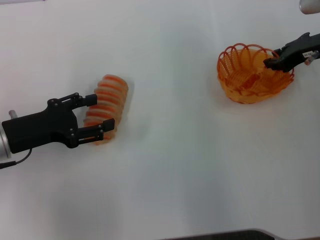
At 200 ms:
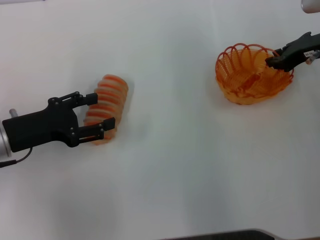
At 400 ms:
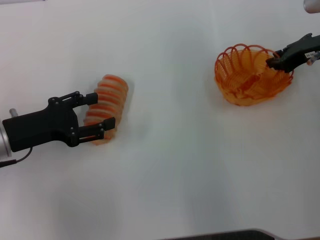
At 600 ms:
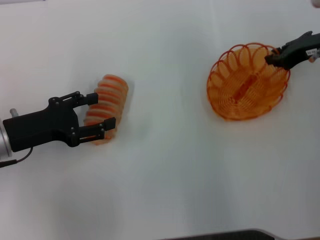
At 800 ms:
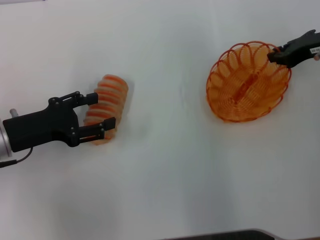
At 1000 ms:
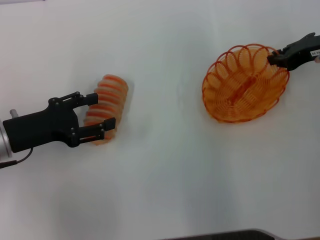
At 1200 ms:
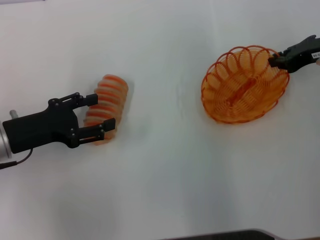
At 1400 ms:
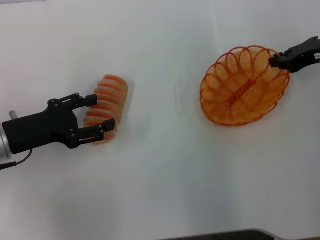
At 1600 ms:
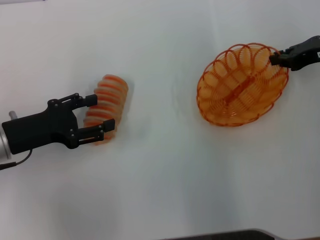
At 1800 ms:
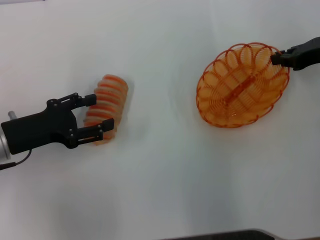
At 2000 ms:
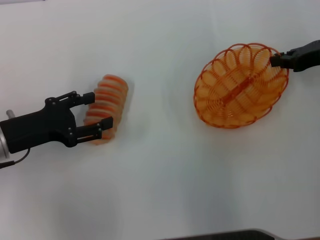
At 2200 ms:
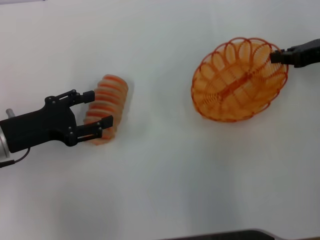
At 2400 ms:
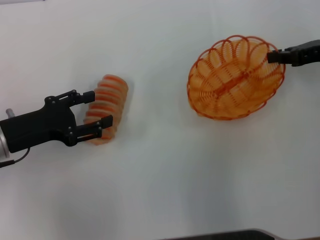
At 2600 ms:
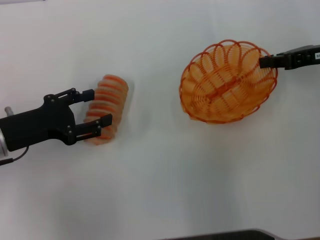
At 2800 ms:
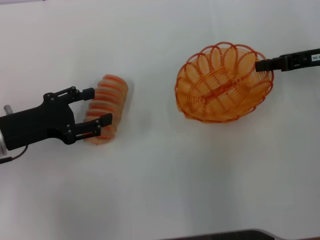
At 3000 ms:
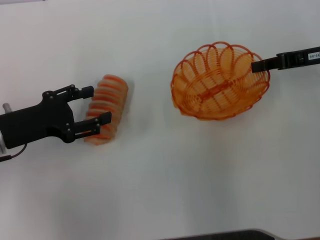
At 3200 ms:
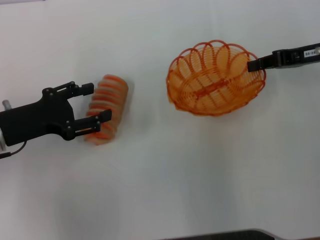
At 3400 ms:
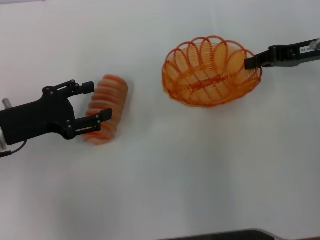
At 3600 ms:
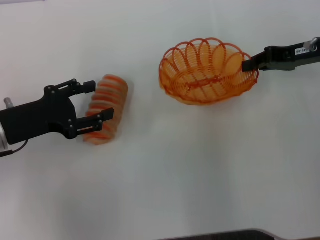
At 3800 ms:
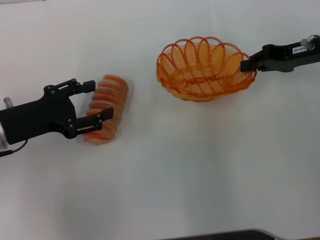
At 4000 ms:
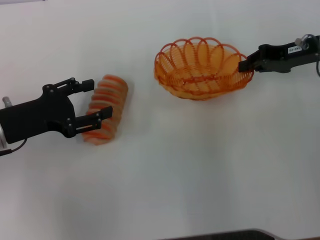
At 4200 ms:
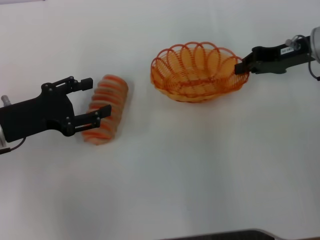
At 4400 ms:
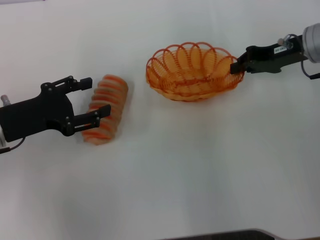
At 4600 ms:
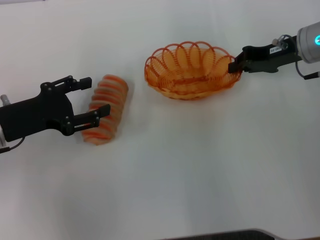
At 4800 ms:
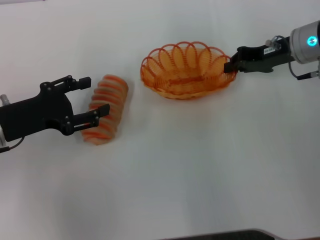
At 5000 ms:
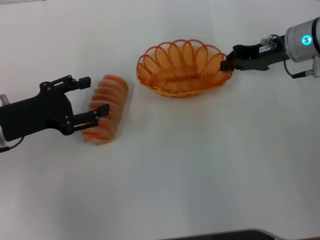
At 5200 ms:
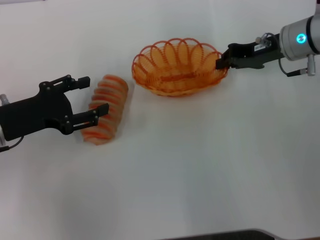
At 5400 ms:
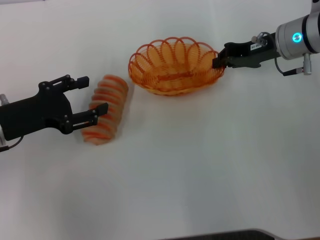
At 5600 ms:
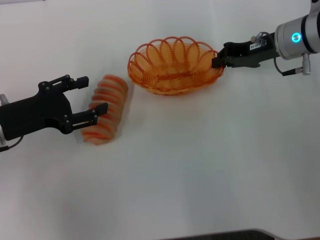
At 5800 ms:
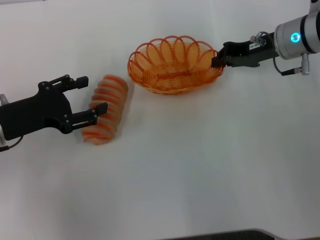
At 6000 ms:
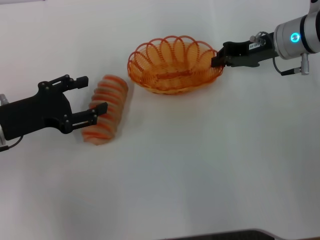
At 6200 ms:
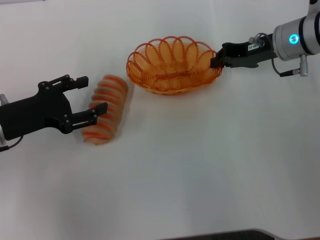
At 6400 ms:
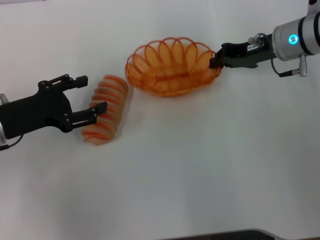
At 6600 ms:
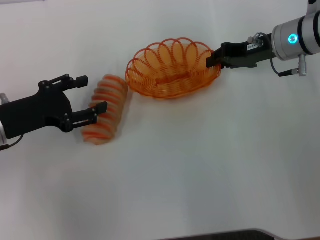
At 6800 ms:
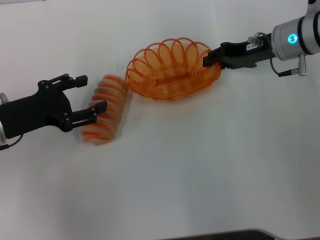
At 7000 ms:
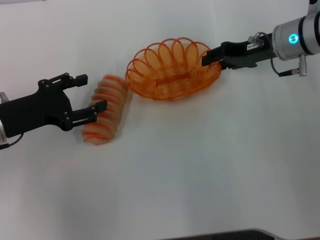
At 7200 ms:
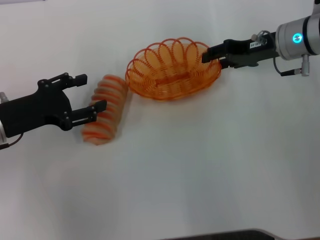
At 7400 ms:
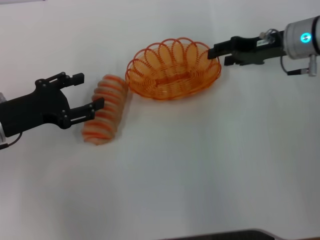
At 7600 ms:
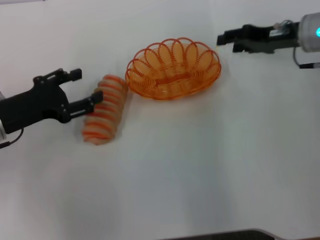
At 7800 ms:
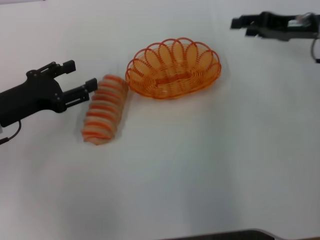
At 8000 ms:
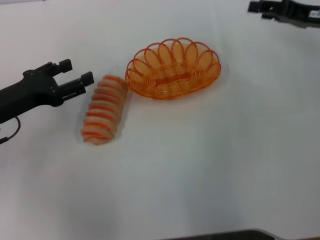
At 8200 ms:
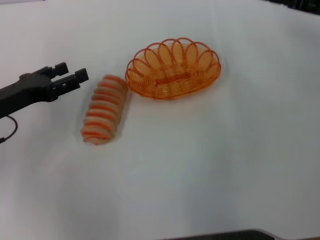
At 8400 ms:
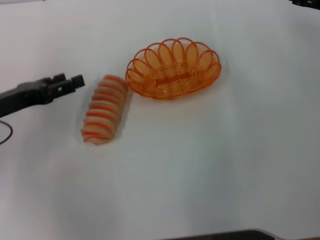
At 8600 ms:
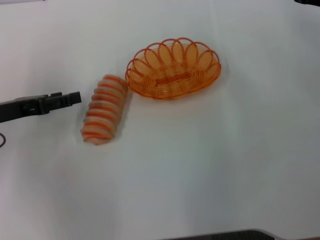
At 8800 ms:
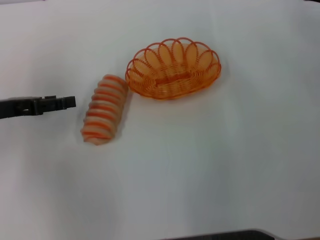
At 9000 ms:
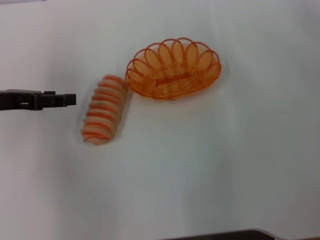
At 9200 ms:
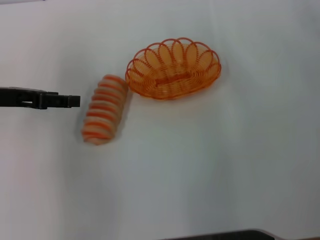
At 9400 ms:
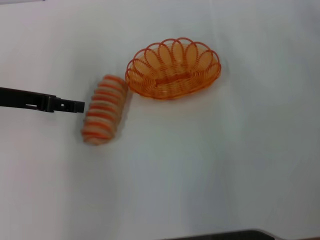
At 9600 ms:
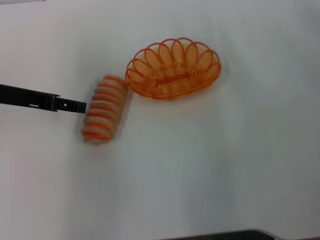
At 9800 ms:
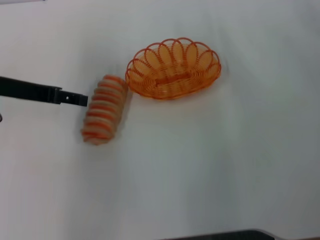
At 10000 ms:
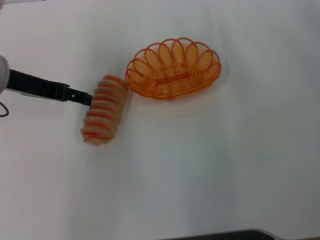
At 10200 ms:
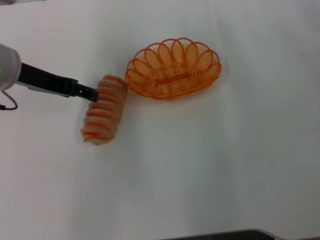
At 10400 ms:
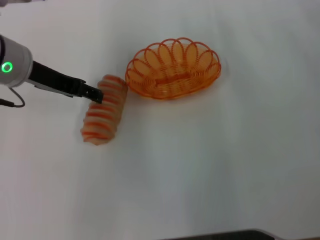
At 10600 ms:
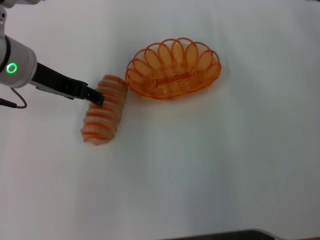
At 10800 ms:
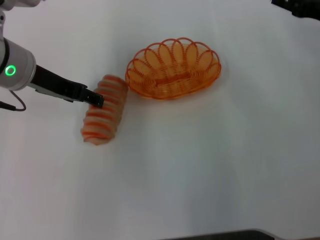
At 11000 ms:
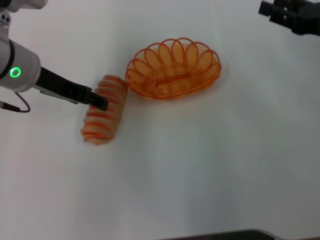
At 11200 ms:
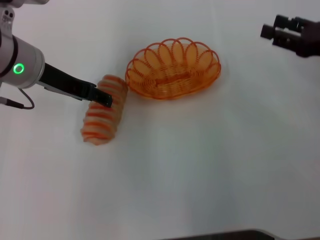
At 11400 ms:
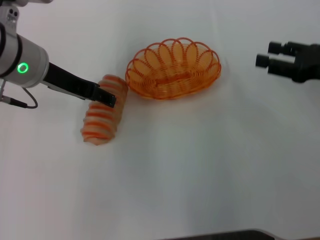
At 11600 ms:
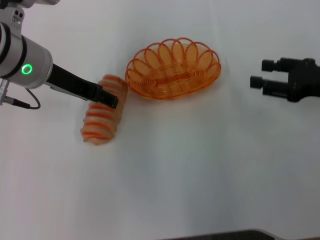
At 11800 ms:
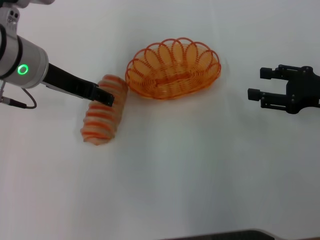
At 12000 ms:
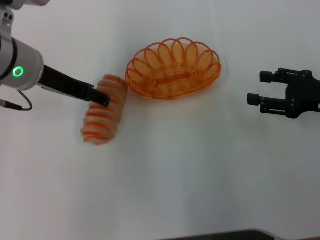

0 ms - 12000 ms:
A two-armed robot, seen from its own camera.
Step, 0 ms - 2000 ms: Pick up the basket with the right gripper.
Step, 2200 ms - 7400 ms: Place the basket in the center of view with the right gripper.
0 ms - 1600 ms: The grippers move only a little.
3000 ms - 4400 ms: The right gripper shifts by some 5 cm.
4400 ms - 6000 ms: The grippers make only small movements.
6000 ms - 7600 ms: The right gripper opens up.
7600 ms - 9000 ms: The left gripper shifts by approximately 5 cm. Meanwhile the right gripper travels to the right by some 5 cm.
9000 ms - 10400 ms: The left gripper is displaced to the right and upward by about 10 cm.
10400 ms - 12000 ms: The right gripper moves backward and downward, some 10 cm.

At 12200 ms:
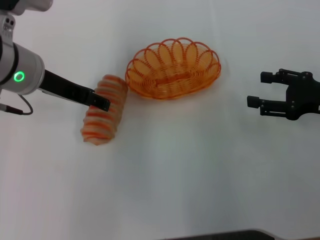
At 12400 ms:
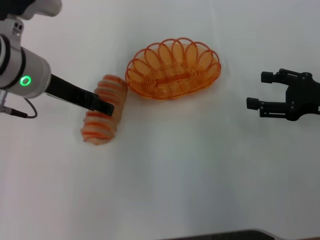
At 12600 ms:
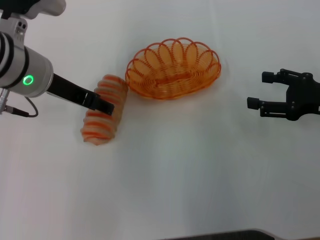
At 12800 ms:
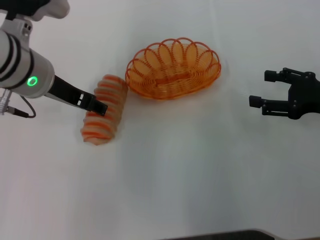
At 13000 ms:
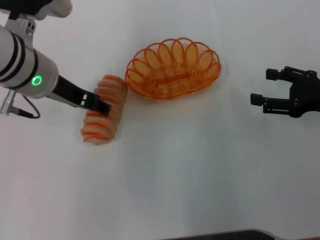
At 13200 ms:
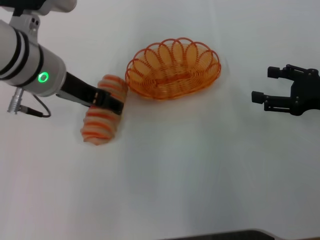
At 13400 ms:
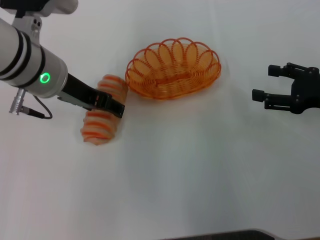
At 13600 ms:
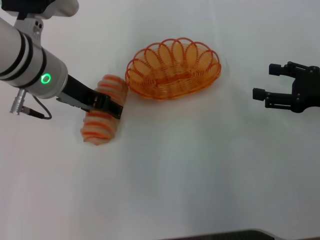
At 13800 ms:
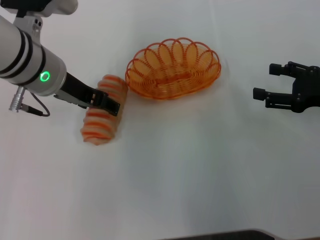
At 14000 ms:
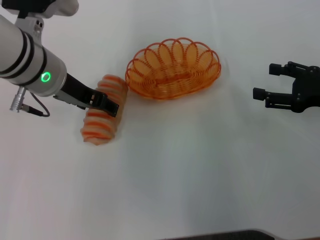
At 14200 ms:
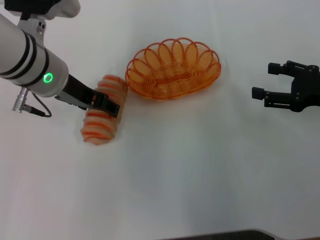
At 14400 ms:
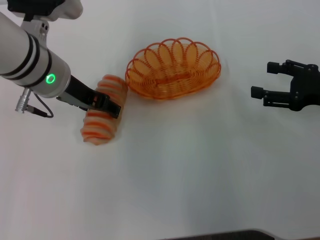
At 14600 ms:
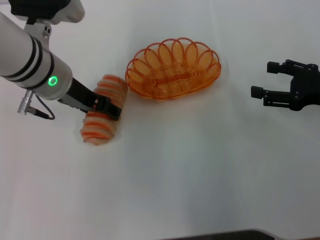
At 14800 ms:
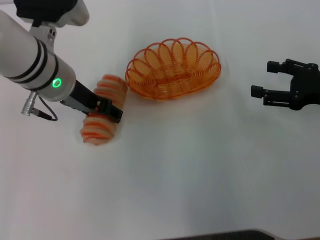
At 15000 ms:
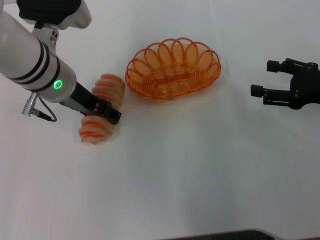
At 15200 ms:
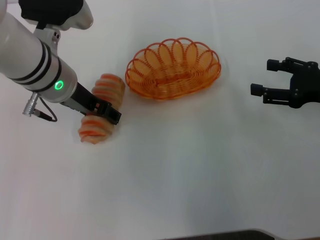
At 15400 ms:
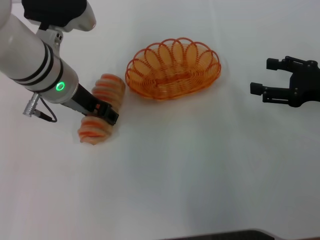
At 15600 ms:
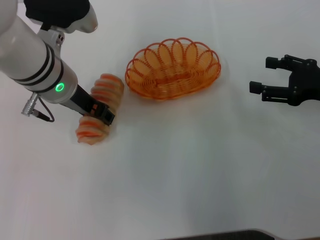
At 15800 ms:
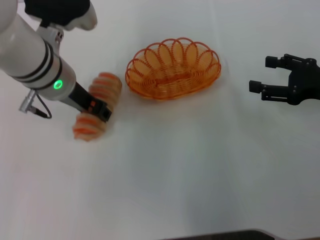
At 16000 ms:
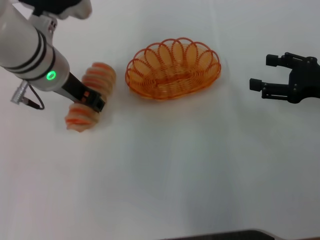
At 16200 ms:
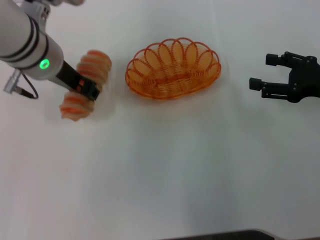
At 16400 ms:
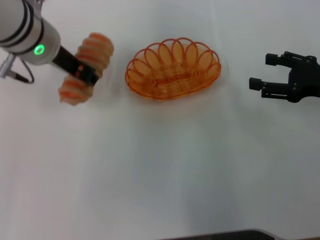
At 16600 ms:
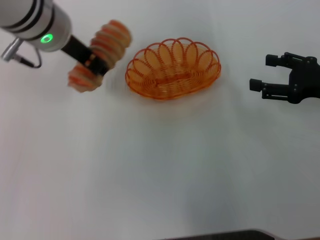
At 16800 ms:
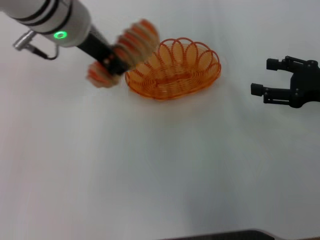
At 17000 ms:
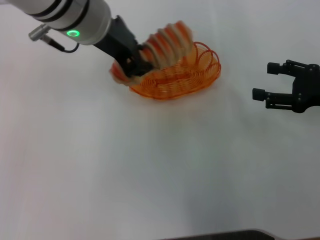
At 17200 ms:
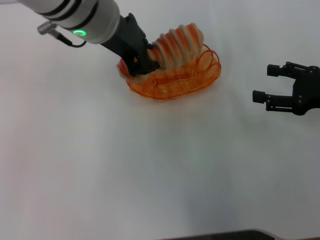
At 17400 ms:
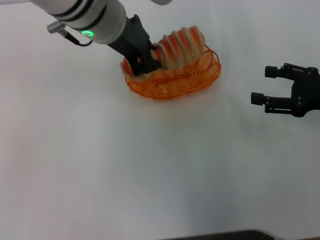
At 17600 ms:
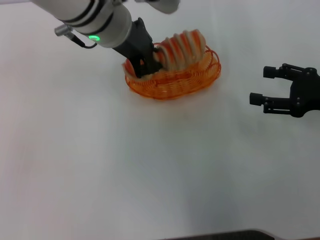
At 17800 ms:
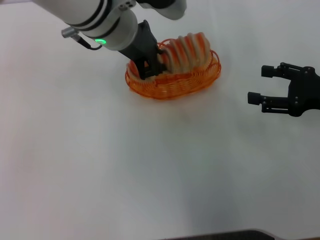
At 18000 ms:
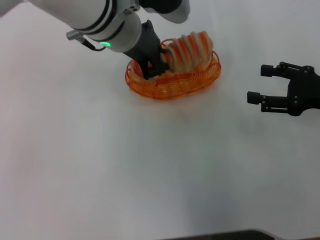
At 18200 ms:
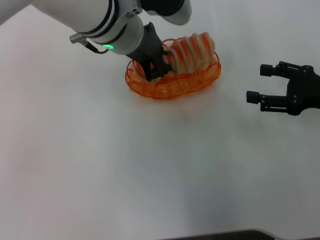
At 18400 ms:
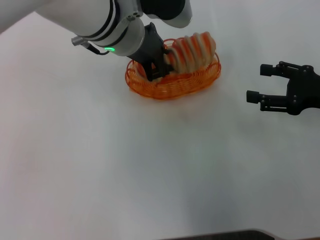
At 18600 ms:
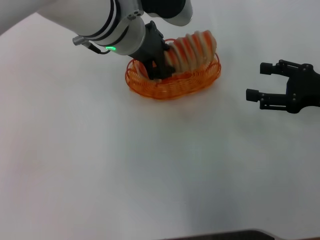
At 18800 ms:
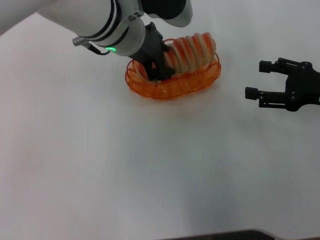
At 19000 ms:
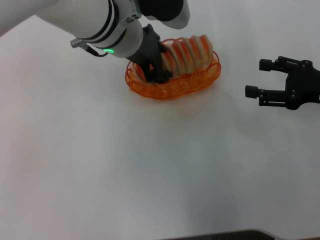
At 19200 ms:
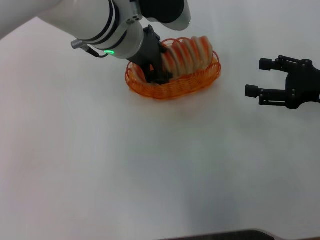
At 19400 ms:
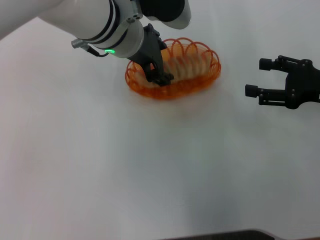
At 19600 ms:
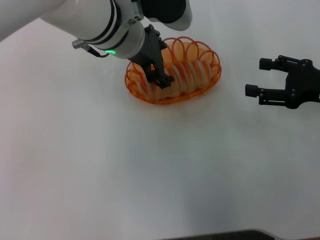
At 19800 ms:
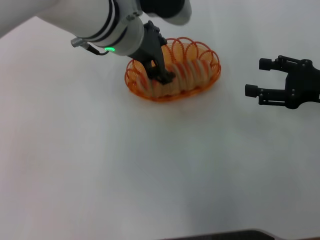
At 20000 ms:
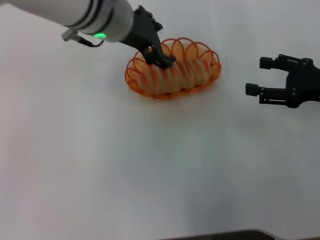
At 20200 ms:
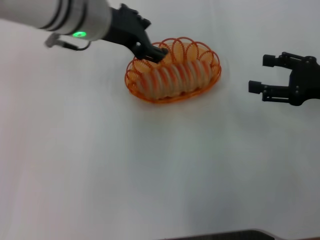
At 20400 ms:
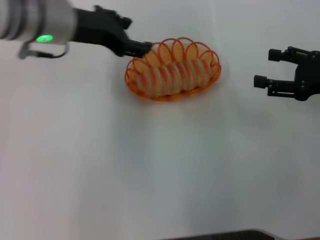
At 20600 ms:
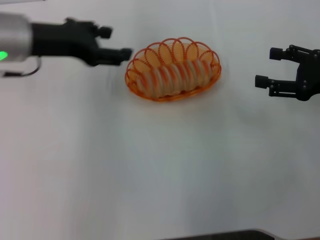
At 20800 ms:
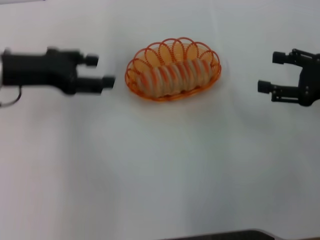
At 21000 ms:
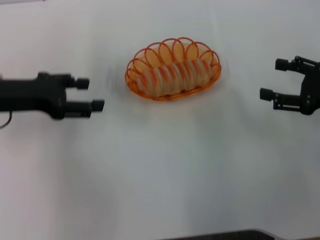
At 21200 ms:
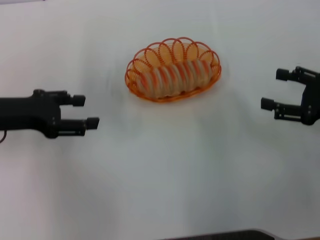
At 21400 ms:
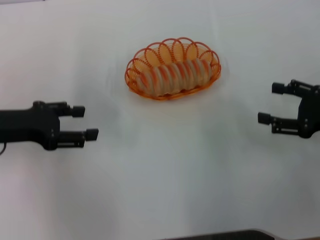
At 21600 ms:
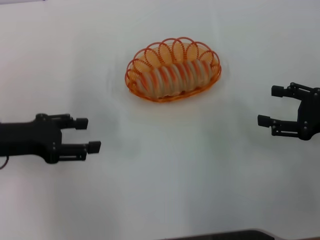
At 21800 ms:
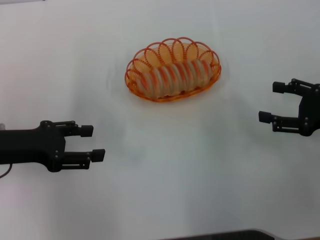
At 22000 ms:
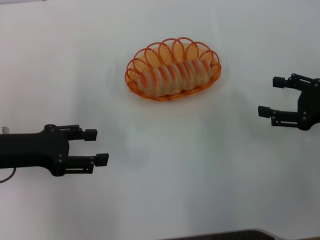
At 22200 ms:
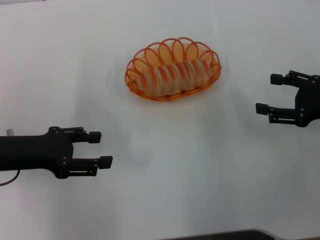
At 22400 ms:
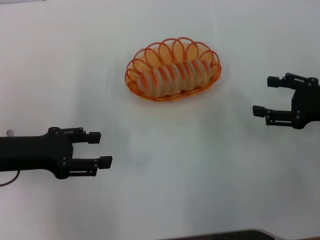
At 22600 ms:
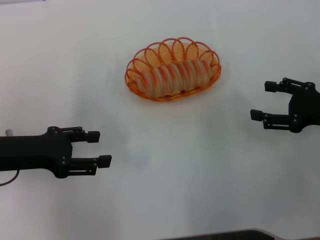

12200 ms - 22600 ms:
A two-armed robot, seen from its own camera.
Step, 12200 ms - 15800 ms: Pick up the long bread with the left gripper.
Step, 16000 ms - 19600 ms: Place the long bread into the basket with the left gripper.
12200 ms - 15200 ms: The grippers move only a little.
15200 ms - 16600 ms: The left gripper shifts approximately 5 cm upward, and closes.
16600 ms - 18200 ms: The left gripper heads to the right, covering about 5 cm.
18200 ms - 19600 ms: The left gripper opens up.
19600 ms - 21200 ms: The left gripper heads to the left, covering about 20 cm.
21200 ms - 22600 ms: The grippers make only small movements.
